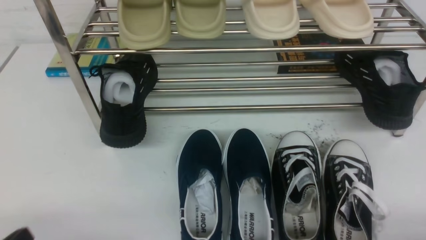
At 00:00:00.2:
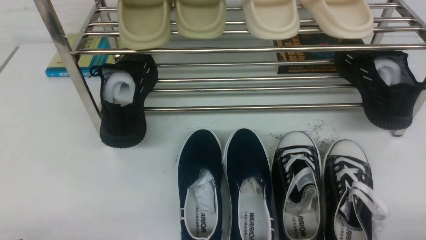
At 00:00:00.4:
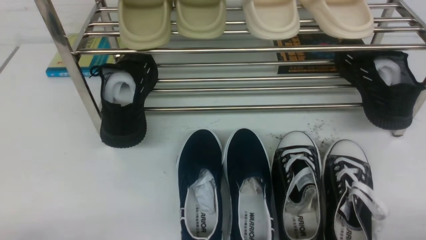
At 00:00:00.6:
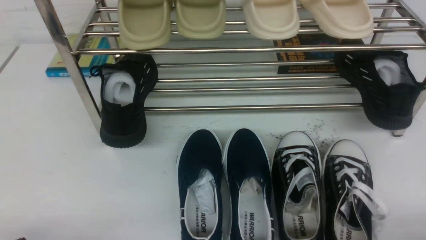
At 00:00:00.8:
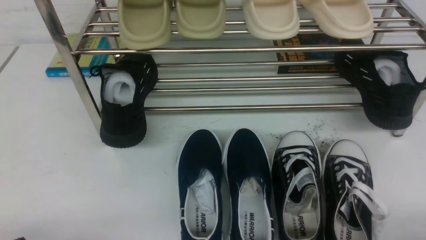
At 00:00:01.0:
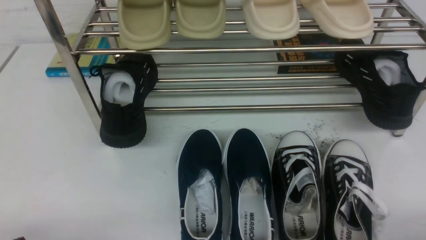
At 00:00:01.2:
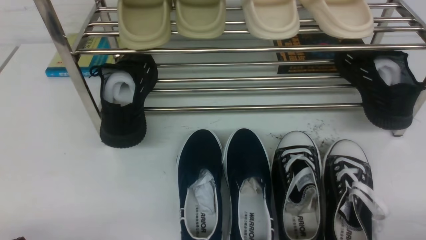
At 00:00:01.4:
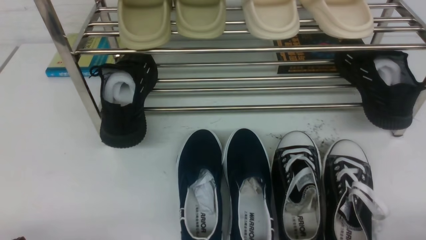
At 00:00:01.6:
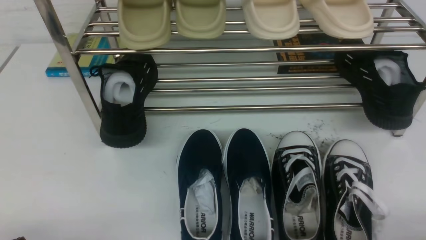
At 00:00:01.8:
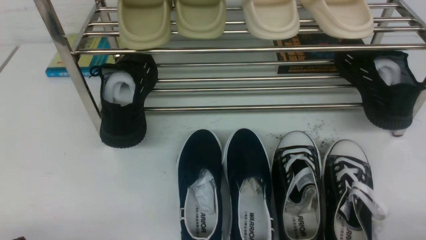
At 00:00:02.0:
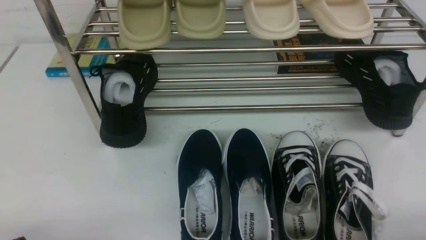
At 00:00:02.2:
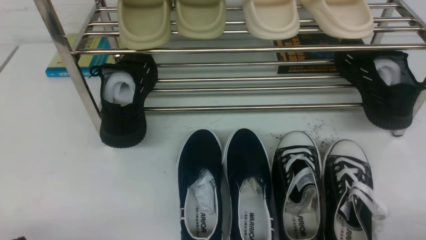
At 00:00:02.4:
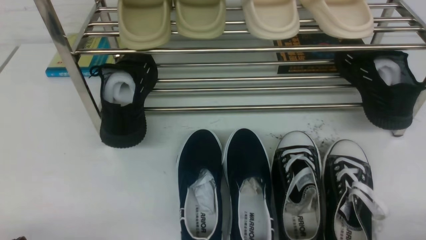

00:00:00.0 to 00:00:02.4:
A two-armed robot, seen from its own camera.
00:00:01.2 to 00:00:02.4: Both grippers stay about where they are.

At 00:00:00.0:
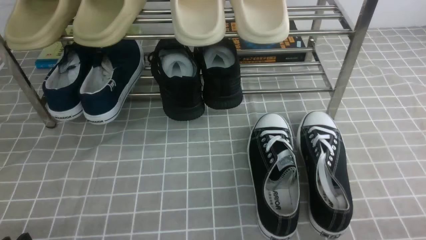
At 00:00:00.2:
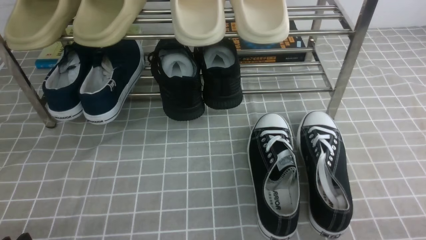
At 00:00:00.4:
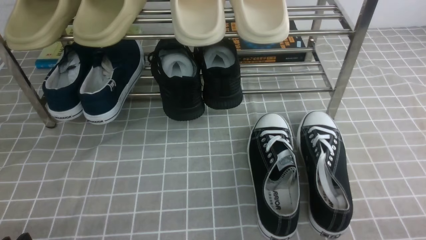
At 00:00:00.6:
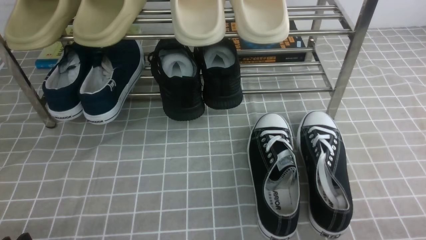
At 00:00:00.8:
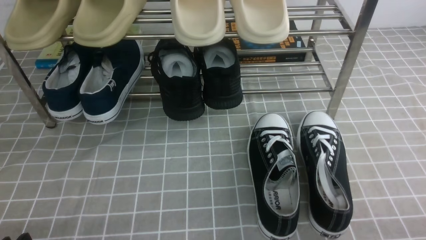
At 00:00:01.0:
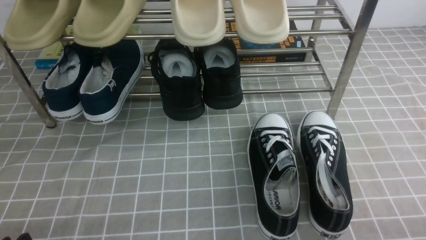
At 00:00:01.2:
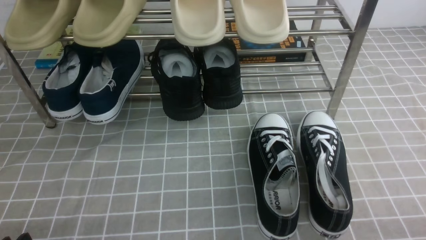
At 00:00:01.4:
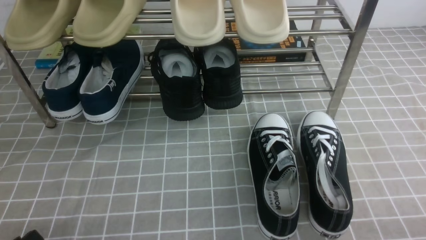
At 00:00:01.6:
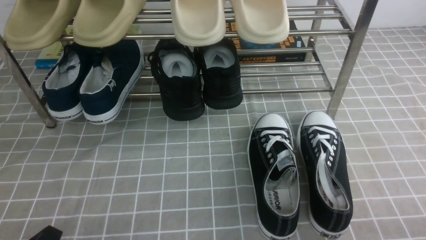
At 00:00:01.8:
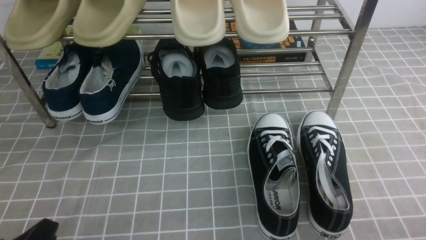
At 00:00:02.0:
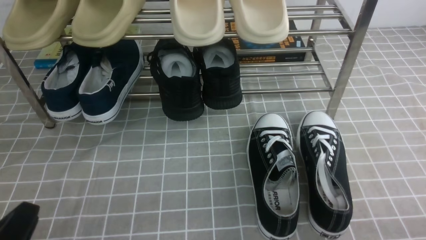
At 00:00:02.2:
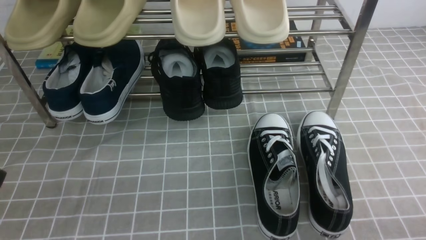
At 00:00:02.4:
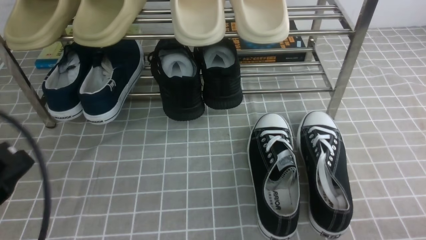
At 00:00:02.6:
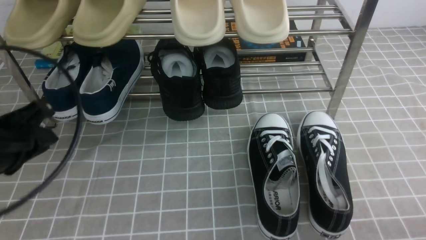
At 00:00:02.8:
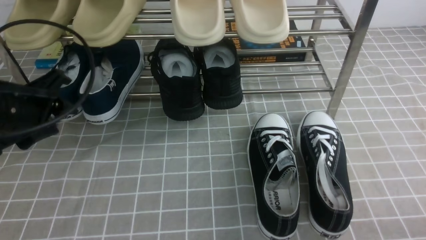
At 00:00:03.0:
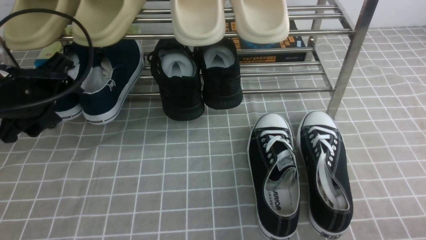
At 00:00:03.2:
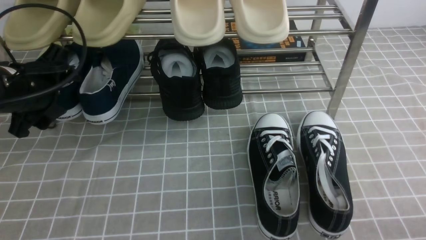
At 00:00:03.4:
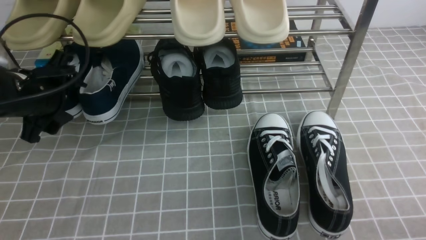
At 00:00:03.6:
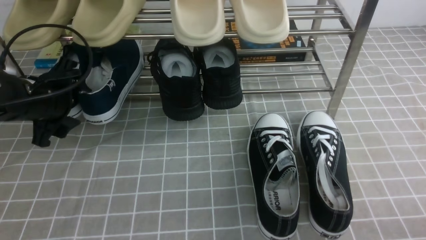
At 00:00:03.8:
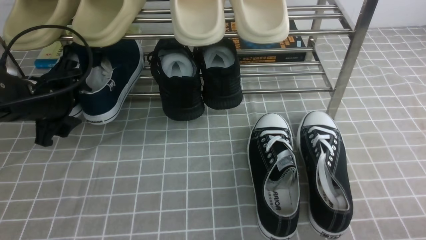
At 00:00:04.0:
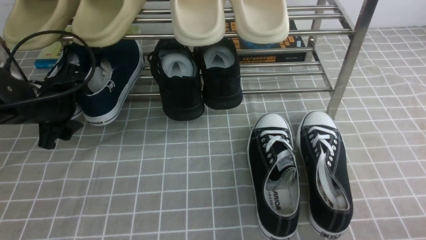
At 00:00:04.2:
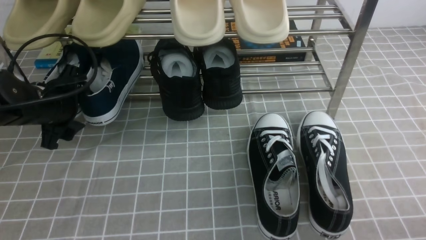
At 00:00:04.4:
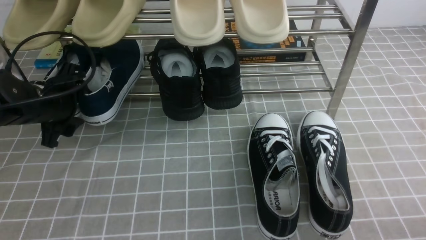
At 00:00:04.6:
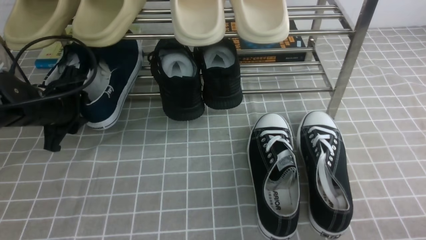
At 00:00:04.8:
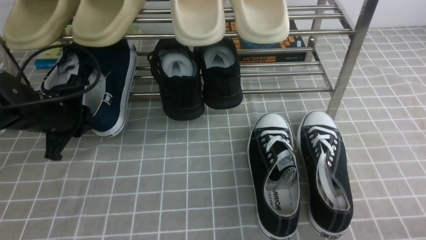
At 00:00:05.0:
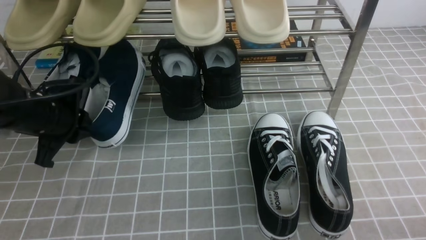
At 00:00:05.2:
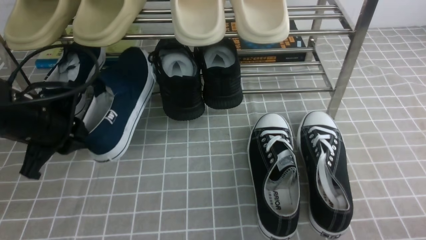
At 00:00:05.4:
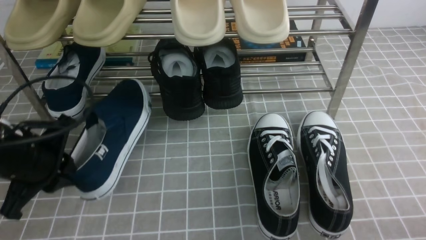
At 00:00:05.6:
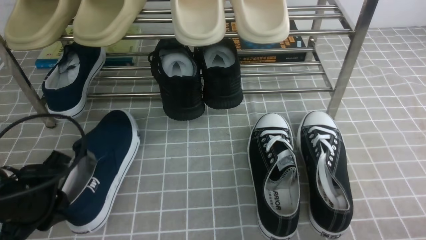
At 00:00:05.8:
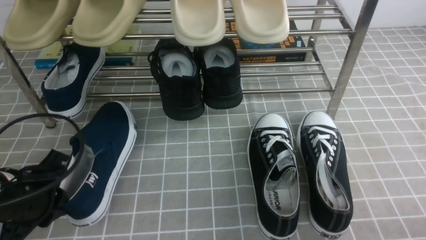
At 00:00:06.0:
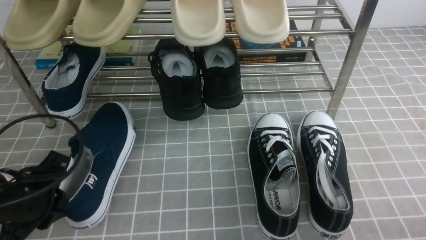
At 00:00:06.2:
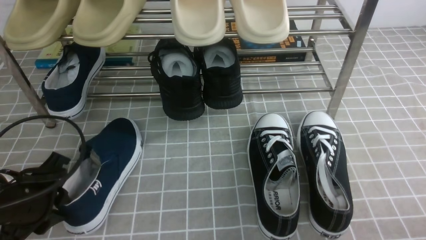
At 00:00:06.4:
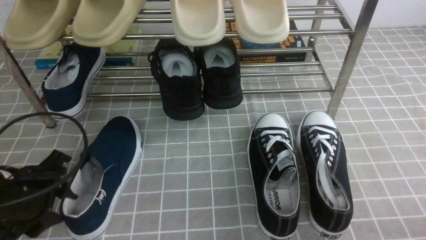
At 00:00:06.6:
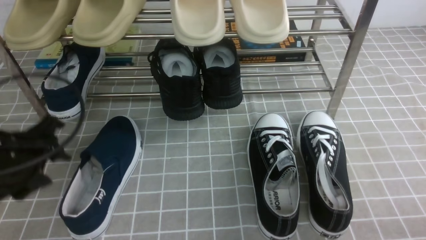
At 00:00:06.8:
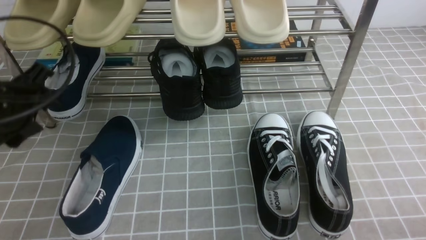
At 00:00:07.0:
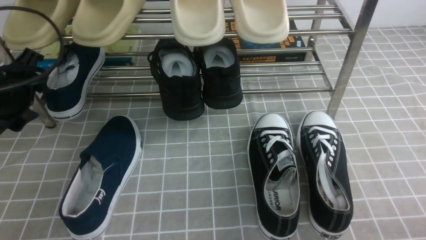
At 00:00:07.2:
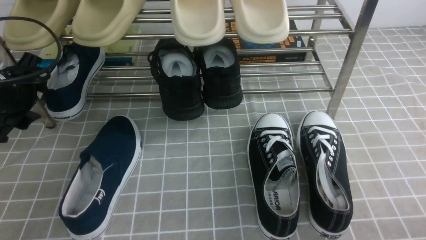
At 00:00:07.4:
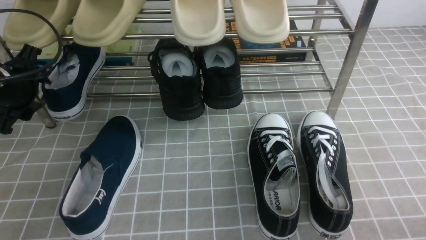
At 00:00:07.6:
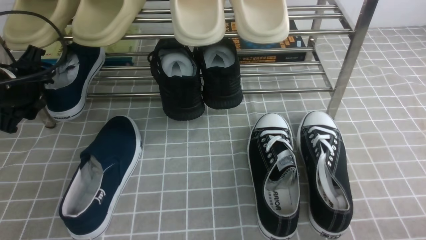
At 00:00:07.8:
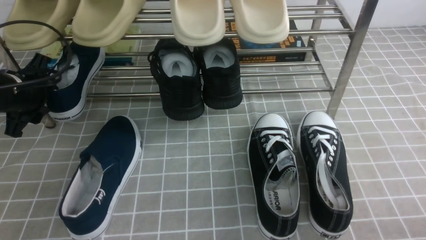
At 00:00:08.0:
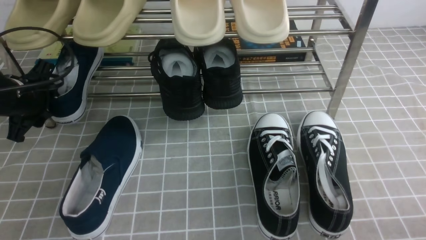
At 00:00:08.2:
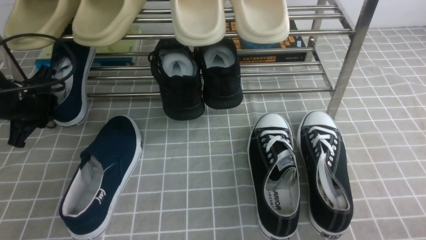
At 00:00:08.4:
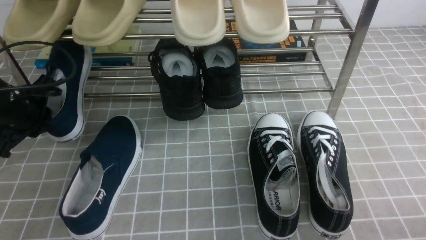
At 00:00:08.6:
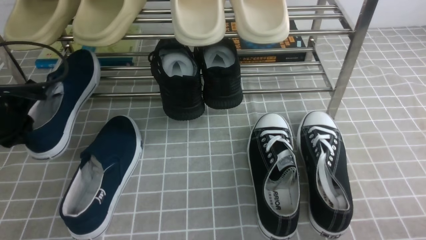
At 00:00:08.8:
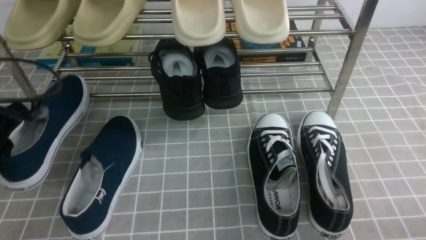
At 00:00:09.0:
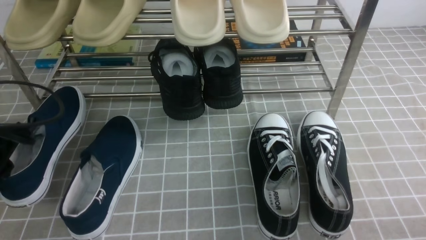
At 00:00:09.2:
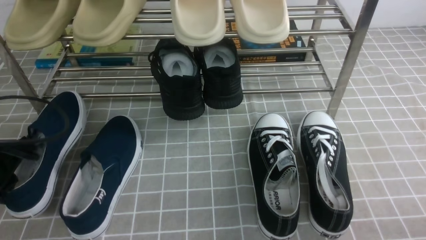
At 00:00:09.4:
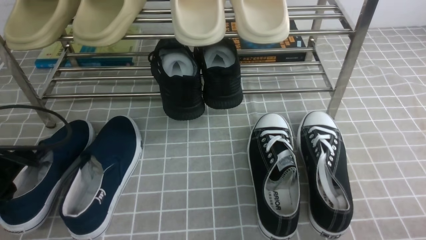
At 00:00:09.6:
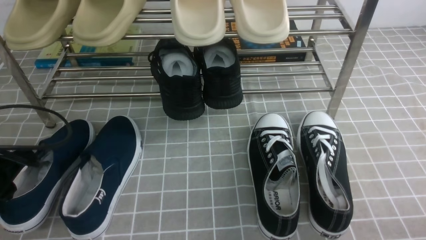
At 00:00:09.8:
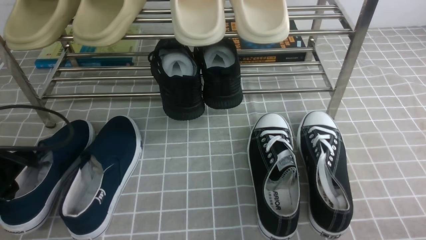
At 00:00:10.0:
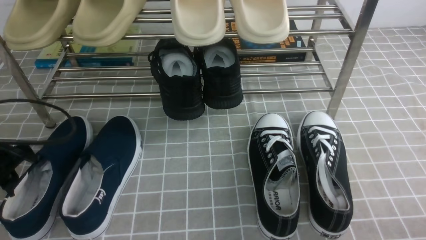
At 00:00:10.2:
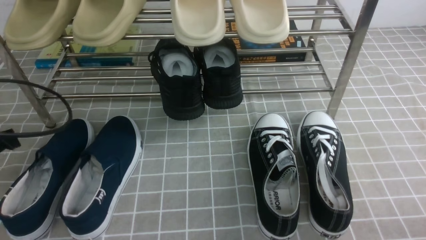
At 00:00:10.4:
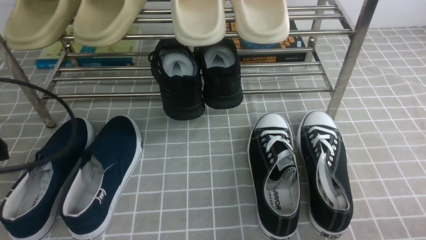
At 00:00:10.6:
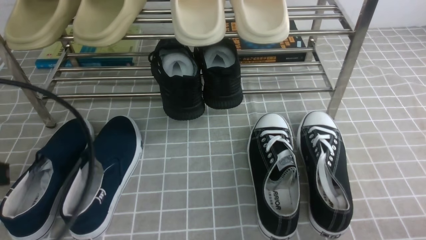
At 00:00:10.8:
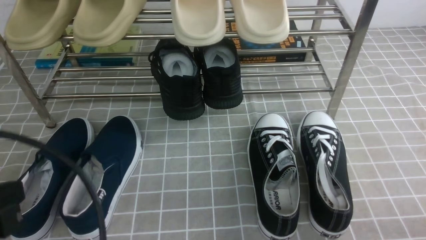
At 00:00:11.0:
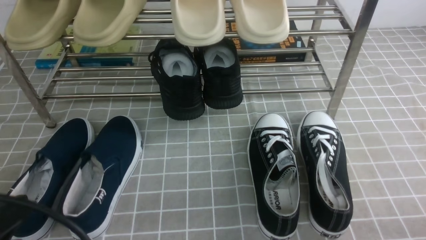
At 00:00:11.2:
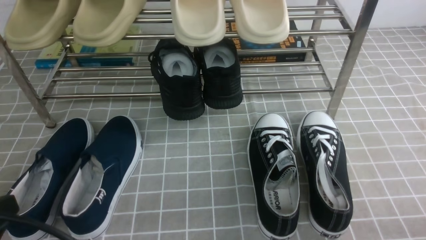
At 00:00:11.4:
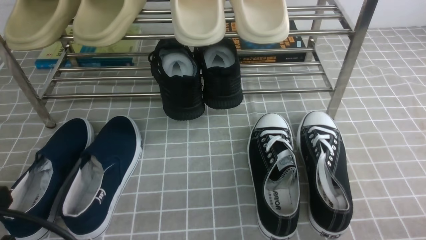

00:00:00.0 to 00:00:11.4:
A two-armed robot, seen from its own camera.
Step, 00:00:00.0 to 00:00:04.8: use the left arm to clamp a shoe on the left side of the shoe rack.
Step, 00:00:05.0 to 00:00:06.4: Use your left arm to remove the clamped shoe from the shoe rack and put it down.
Step, 00:00:06.8 to 00:00:08.2: use the left arm to clamp a shoe on the left side of the shoe rack.
Step, 00:00:08.4 to 00:00:10.0: Use your left arm to remove the clamped shoe from the shoe rack and put it down.
00:00:01.4 to 00:00:02.8: The left gripper goes about 25 cm forward and upward.
00:00:02.8 to 00:00:04.2: The left gripper moves forward and downward, some 10 cm.
00:00:04.2 to 00:00:05.6: The left gripper shifts roughly 15 cm backward, and closes its fingers.
00:00:05.6 to 00:00:07.2: The left gripper moves forward, about 10 cm, and opens up.
00:00:07.2 to 00:00:08.6: The left gripper closes.
00:00:08.6 to 00:00:10.0: The left gripper moves backward, approximately 5 cm, and opens its fingers.
00:00:10.0 to 00:00:11.4: The left gripper moves backward, about 20 cm, and closes.

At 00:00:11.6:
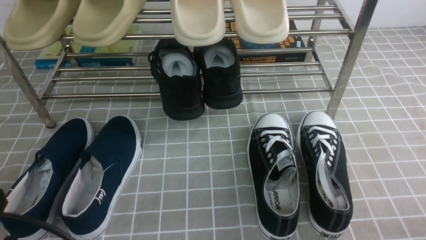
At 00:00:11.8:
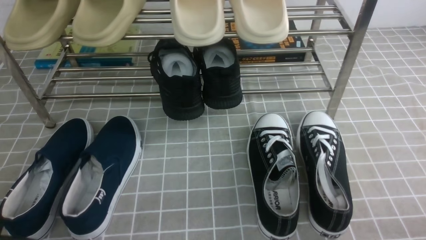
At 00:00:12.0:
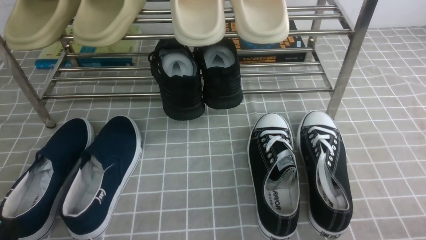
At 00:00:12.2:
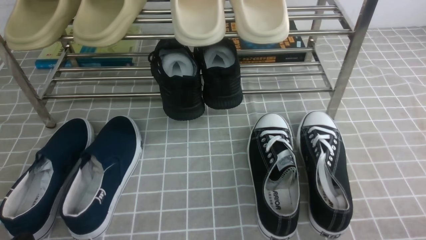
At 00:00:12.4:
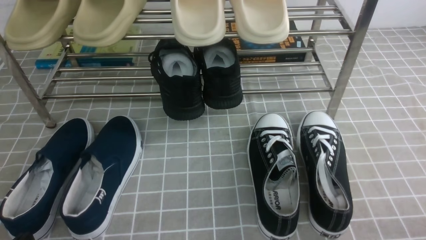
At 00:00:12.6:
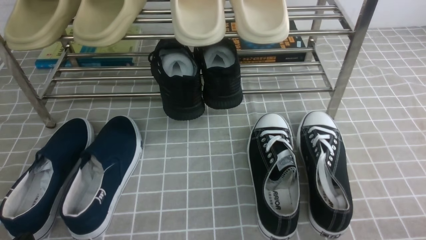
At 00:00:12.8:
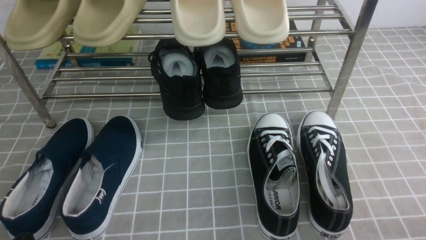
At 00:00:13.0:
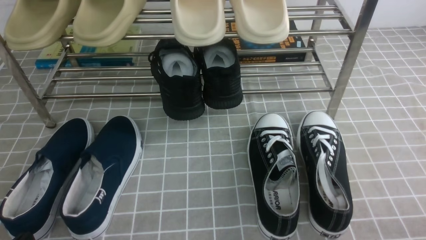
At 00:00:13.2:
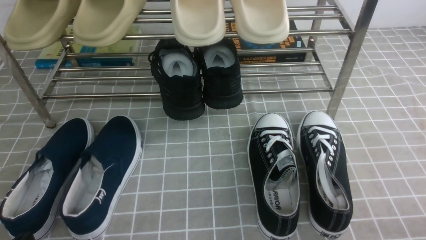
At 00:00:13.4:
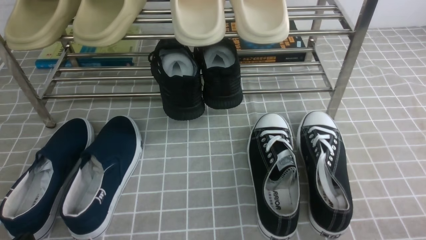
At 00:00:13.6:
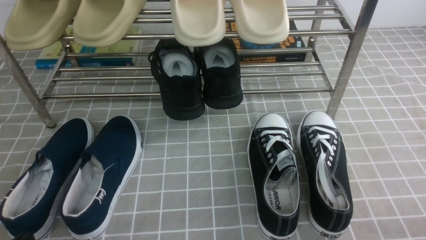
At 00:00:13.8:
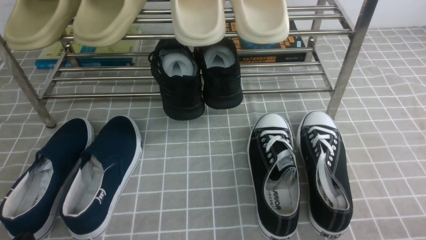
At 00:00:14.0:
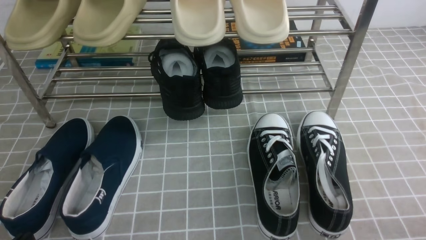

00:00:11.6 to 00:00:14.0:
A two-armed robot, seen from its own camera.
00:00:11.6 to 00:00:12.8: The left gripper heads downward, covering roughly 10 cm.
00:00:12.8 to 00:00:14.0: Both grippers stay put.
